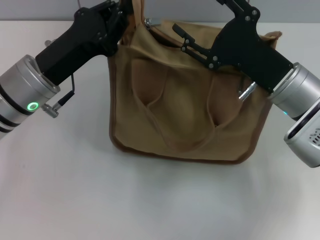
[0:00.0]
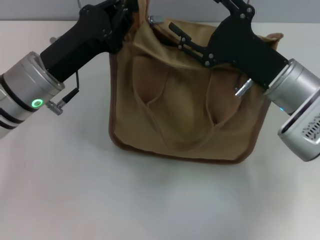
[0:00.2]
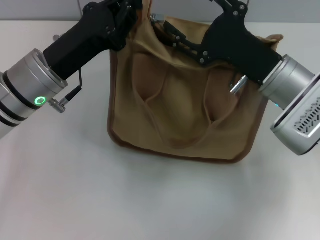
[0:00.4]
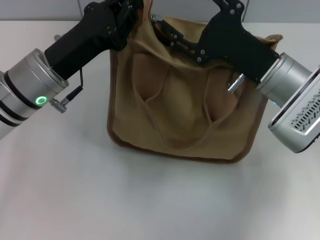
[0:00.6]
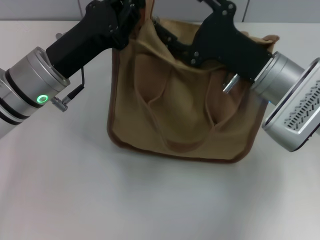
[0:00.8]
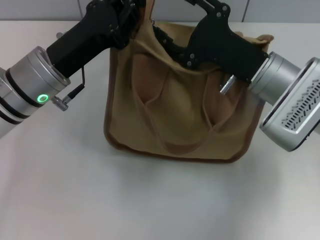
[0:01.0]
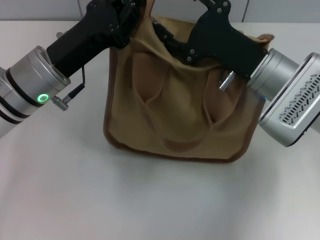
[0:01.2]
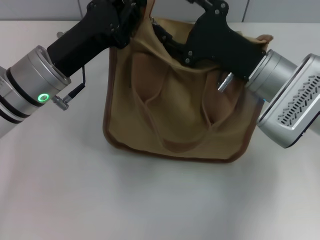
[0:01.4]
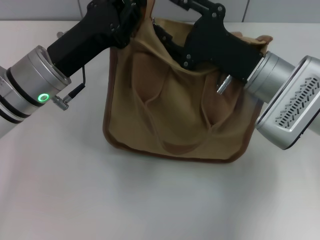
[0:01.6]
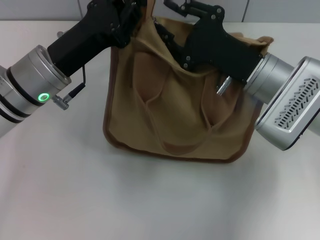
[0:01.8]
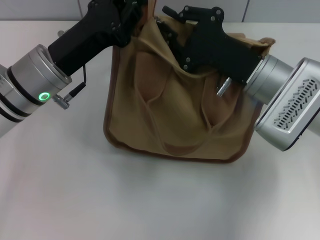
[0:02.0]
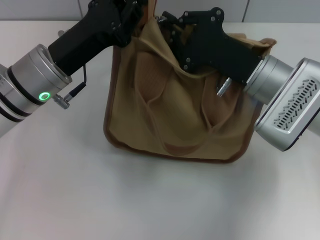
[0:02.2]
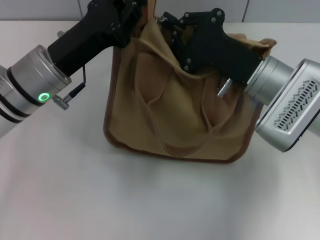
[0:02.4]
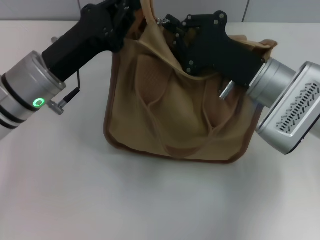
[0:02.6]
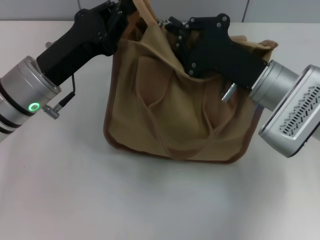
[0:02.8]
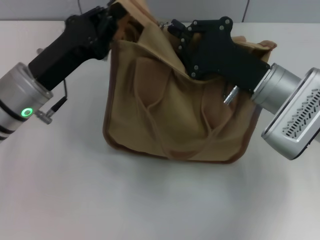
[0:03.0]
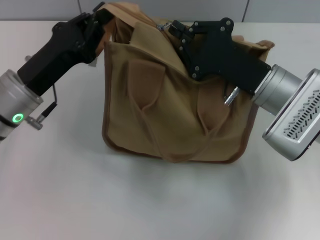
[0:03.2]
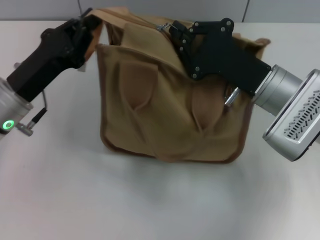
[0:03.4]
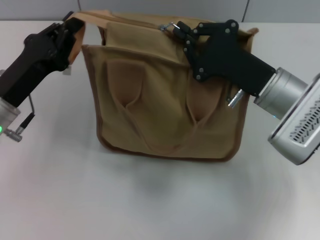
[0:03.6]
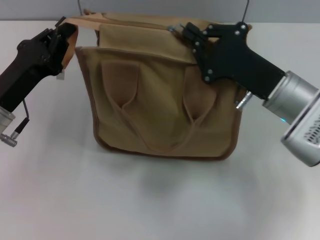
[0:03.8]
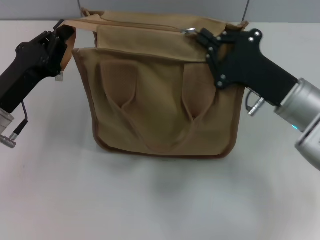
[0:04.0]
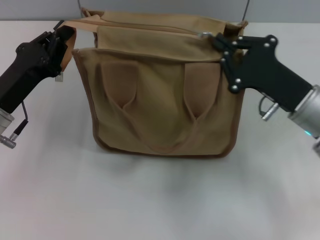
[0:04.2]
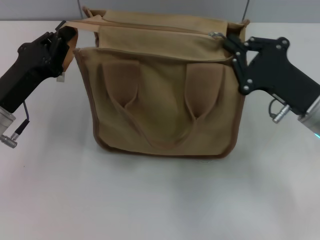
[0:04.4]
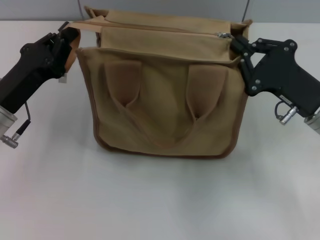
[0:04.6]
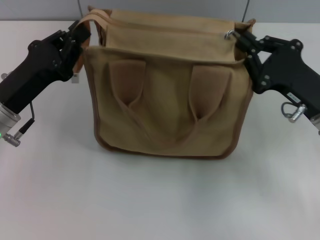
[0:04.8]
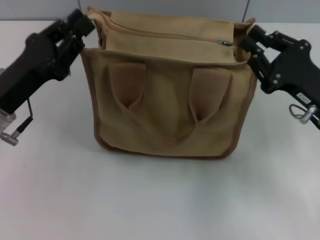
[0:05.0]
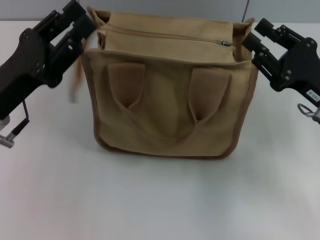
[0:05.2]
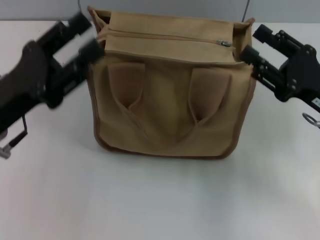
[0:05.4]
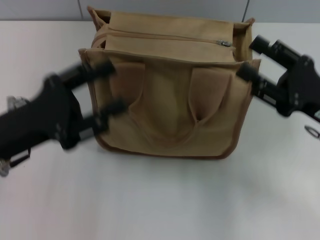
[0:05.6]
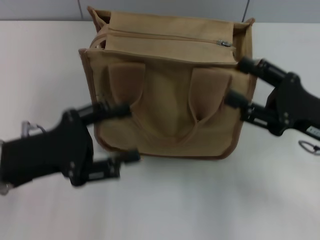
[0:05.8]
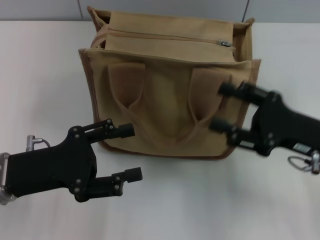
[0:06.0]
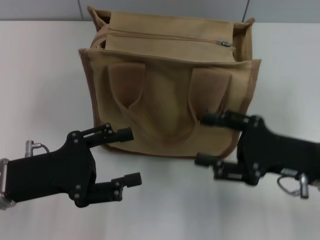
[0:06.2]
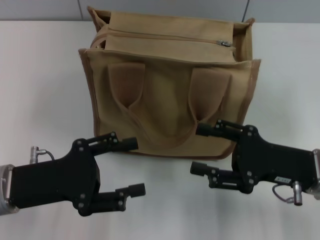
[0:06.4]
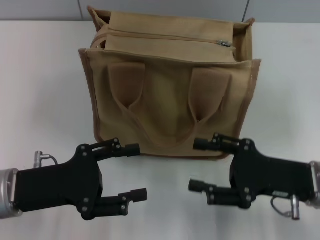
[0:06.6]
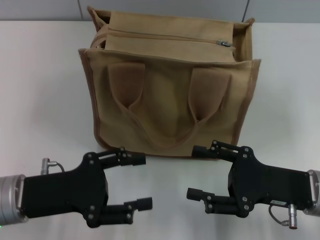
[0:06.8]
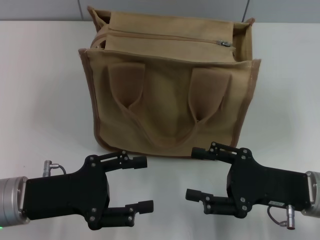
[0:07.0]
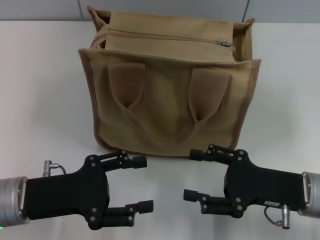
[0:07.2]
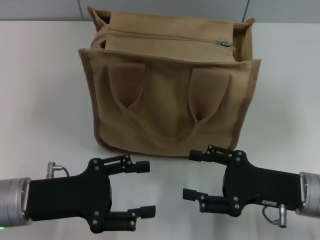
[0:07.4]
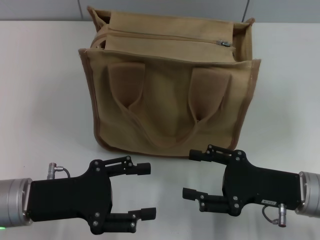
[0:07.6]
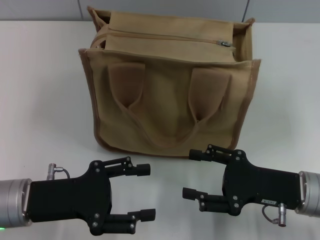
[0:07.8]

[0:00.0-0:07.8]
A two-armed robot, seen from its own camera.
Step, 0:00.0 to 0:04.8: Pull up the zipper with your right hand.
Step, 0:05.0 to 0:05.2: Grab the zipper with your left hand.
0:01.6 to 0:03.2: The left gripper ends up roughly 5 cm from where it was. Meanwhile the right gripper closes its fingers.
0:03.2 to 0:04.6: The right gripper heads to the right, covering some 5 cm.
0:04.6 to 0:06.2: The left gripper is displaced backward by some 5 cm, and opens its fingers, while the right gripper opens.
